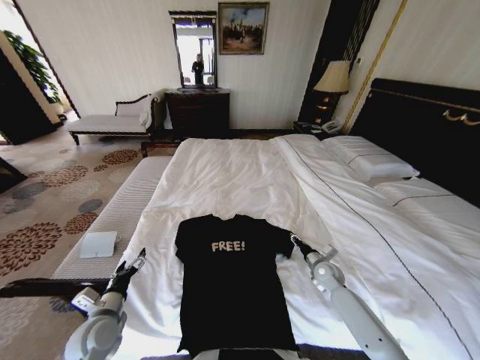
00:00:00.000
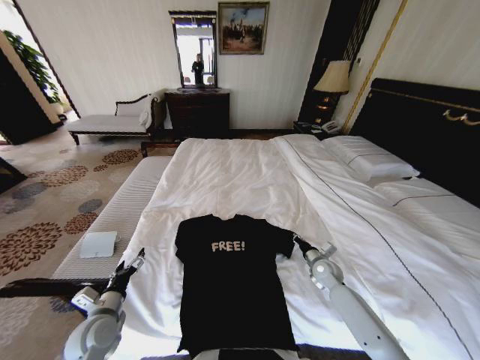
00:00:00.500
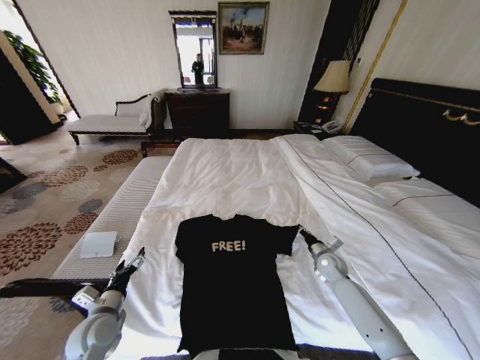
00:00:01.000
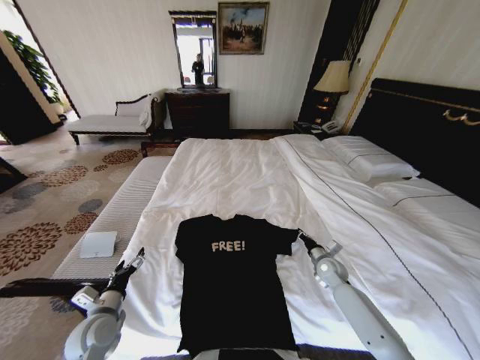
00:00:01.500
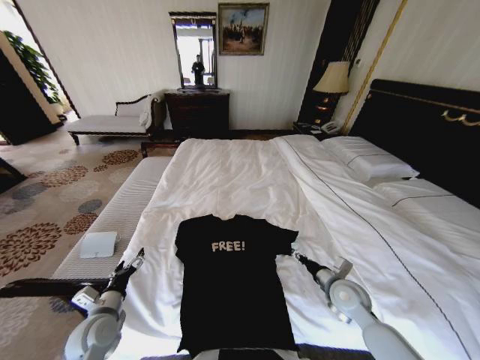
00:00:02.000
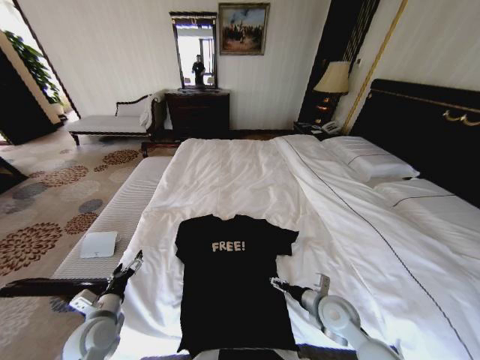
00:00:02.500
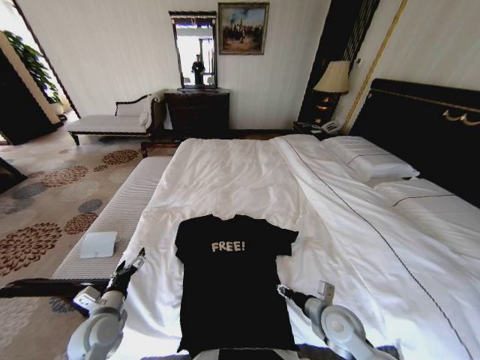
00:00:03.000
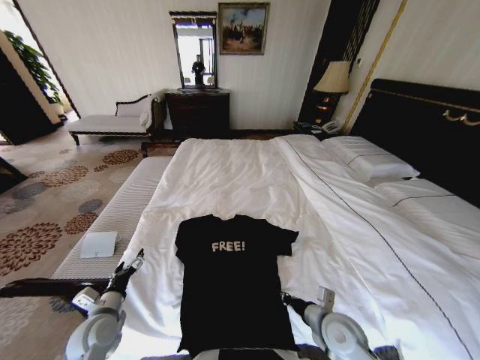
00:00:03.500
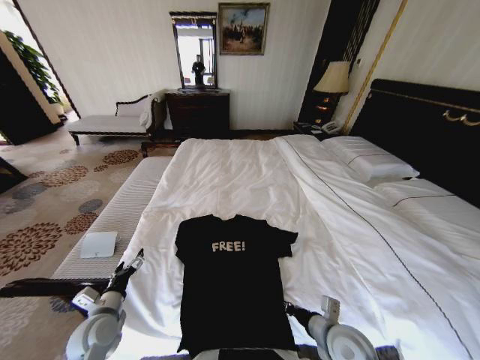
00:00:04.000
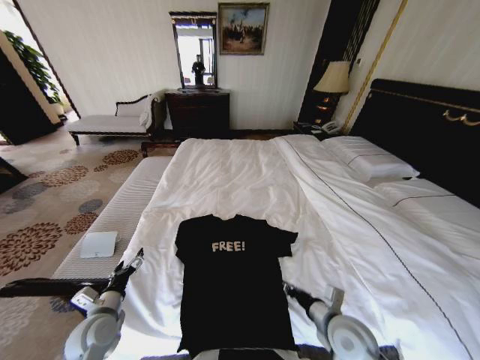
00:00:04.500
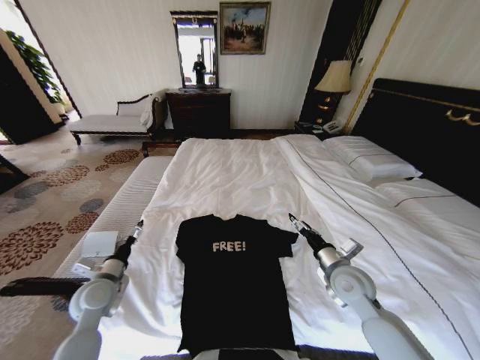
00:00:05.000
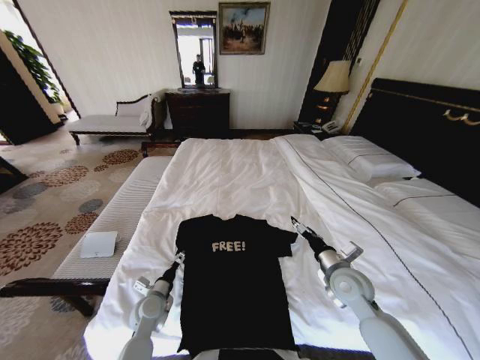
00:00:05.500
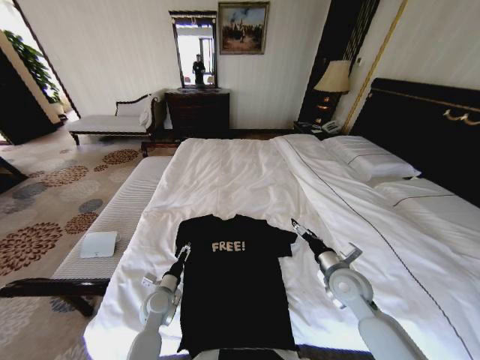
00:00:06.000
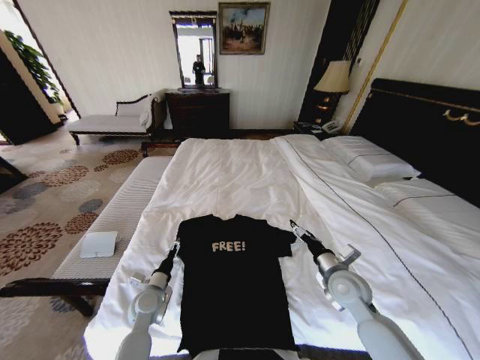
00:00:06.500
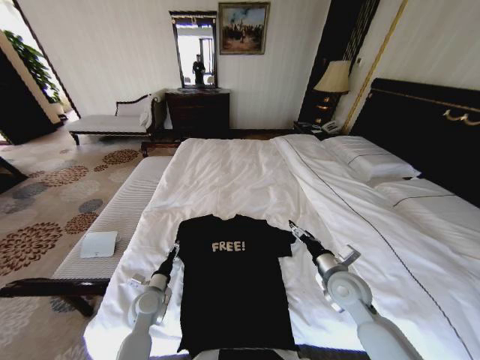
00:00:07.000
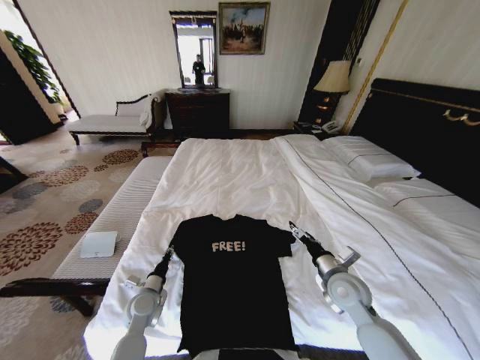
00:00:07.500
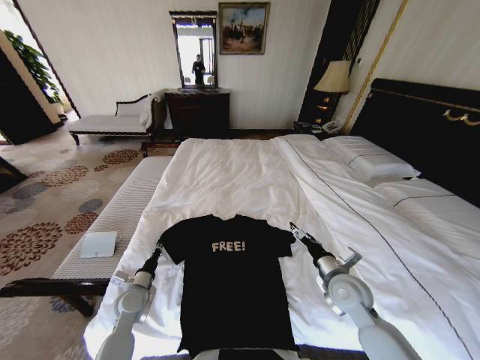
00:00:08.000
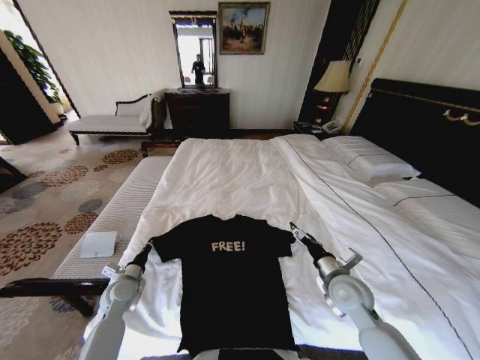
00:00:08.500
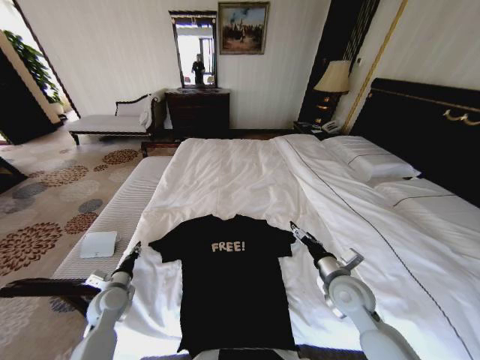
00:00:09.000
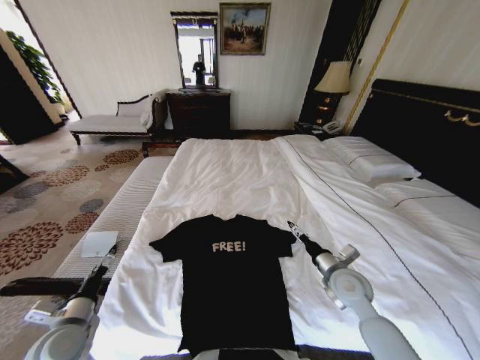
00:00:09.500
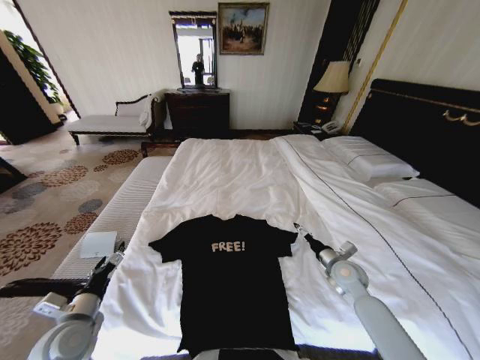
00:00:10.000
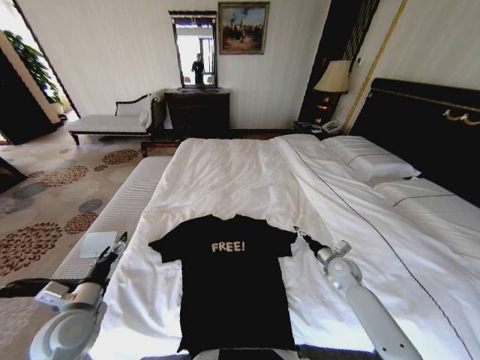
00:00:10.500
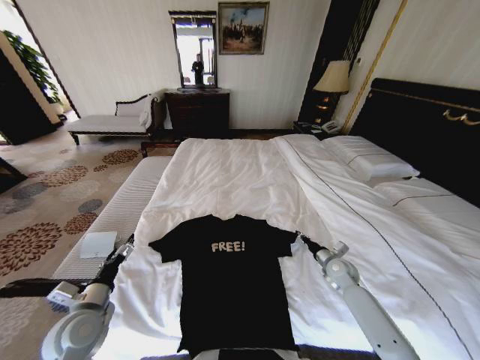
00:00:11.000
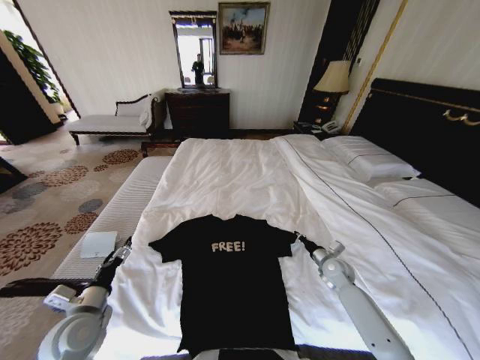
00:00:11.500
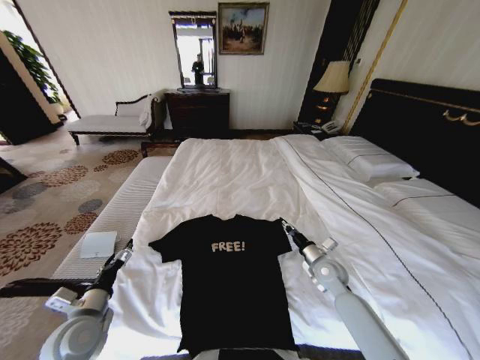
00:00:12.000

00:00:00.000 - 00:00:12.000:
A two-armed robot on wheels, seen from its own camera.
Task of the whole recording: Fold the clothes on the bed.
00:00:00.000 - 00:00:02.000: The right gripper is displaced backward and upward by about 15 cm, and closes, then opens again.
00:00:02.000 - 00:00:04.000: The right gripper moves backward and to the left, roughly 10 cm, and closes its fingers.
00:00:04.000 - 00:00:06.000: The left gripper goes about 15 cm to the right, forward and downward. Meanwhile the right gripper is displaced forward and to the right by approximately 15 cm, and opens.
00:00:06.000 - 00:00:08.000: The left gripper is displaced to the left by roughly 5 cm, and closes.
00:00:08.000 - 00:00:10.000: The left gripper heads backward, upward and to the left, covering roughly 15 cm, and opens its fingers. The right gripper travels forward and to the right by some 10 cm.
00:00:10.000 - 00:00:12.000: The right gripper ends up about 5 cm from where it was, and closes.

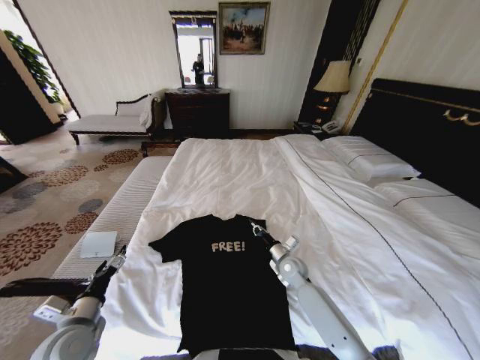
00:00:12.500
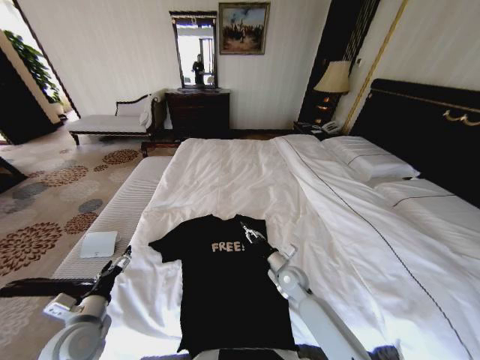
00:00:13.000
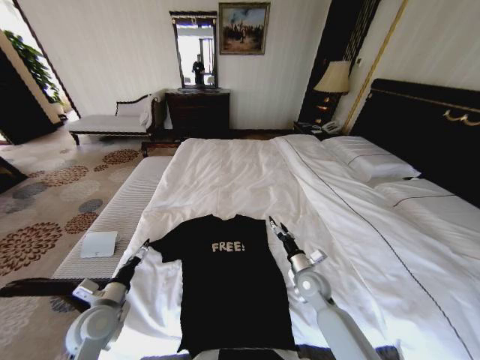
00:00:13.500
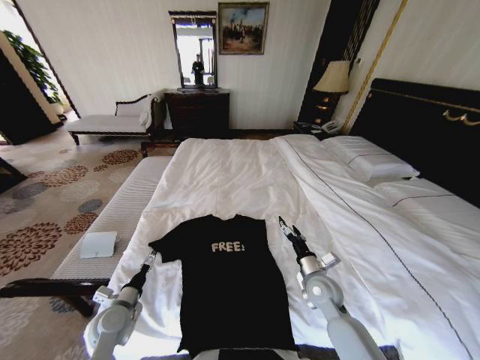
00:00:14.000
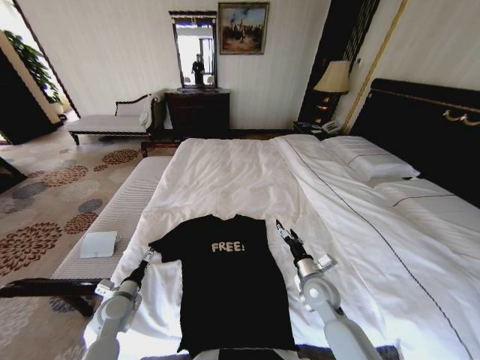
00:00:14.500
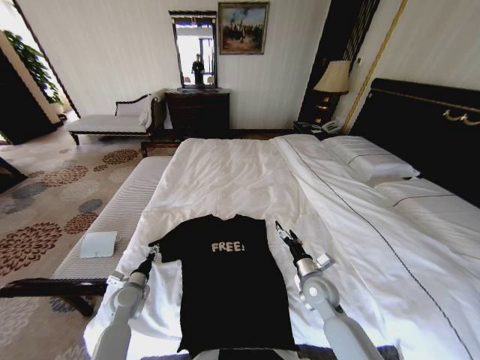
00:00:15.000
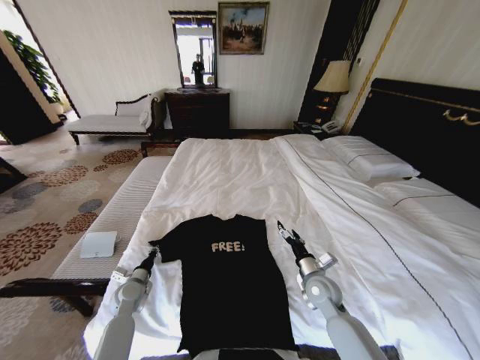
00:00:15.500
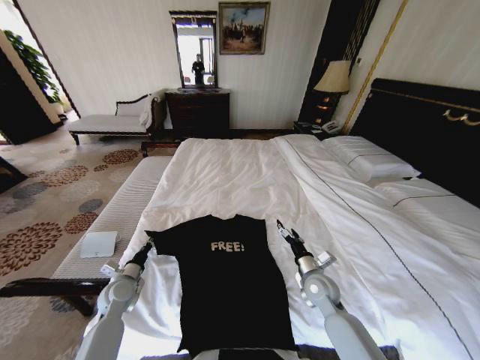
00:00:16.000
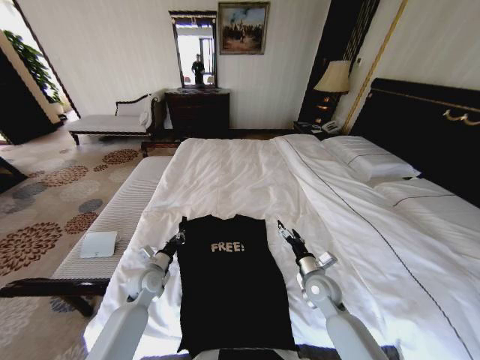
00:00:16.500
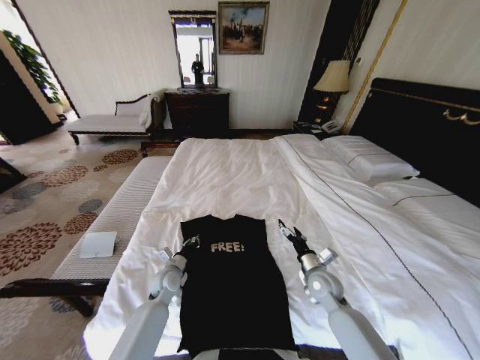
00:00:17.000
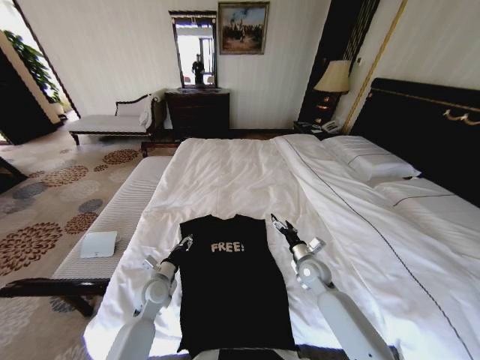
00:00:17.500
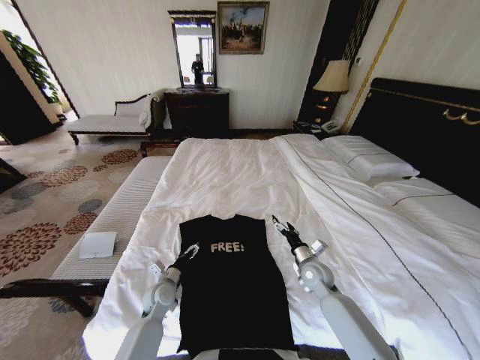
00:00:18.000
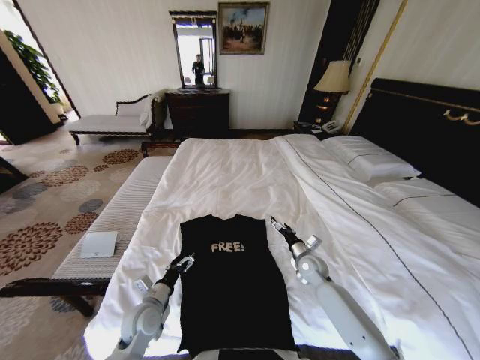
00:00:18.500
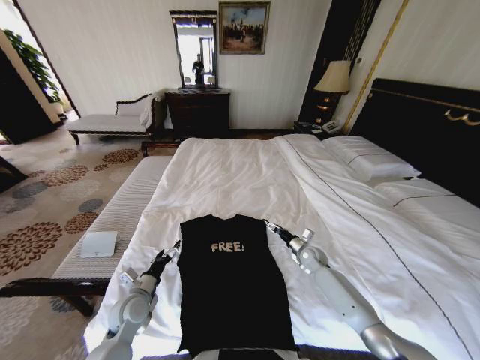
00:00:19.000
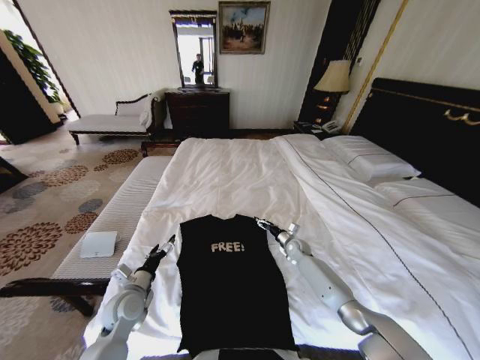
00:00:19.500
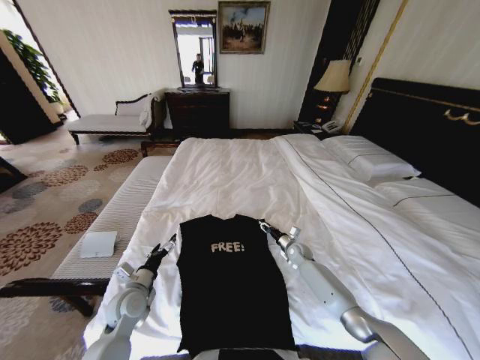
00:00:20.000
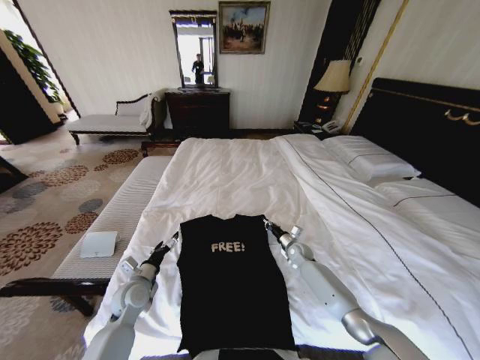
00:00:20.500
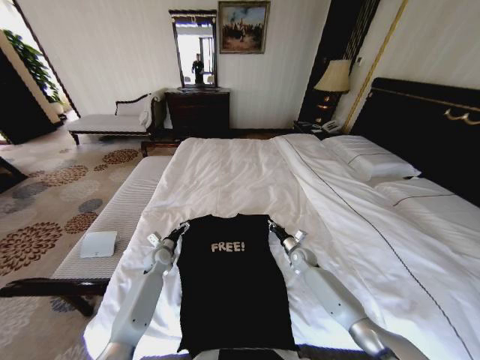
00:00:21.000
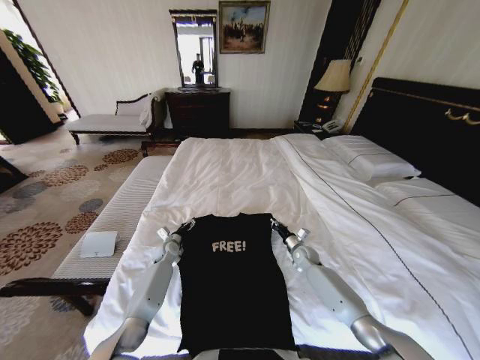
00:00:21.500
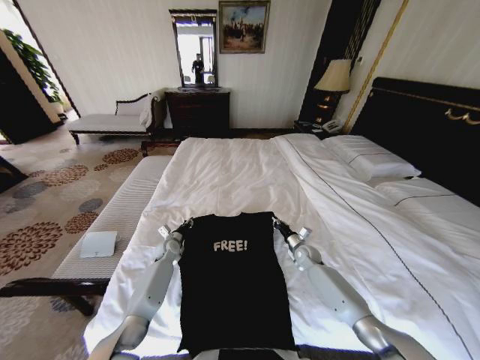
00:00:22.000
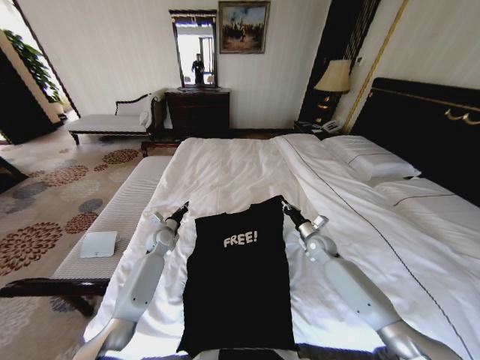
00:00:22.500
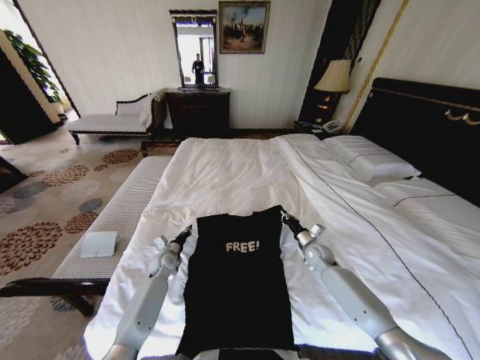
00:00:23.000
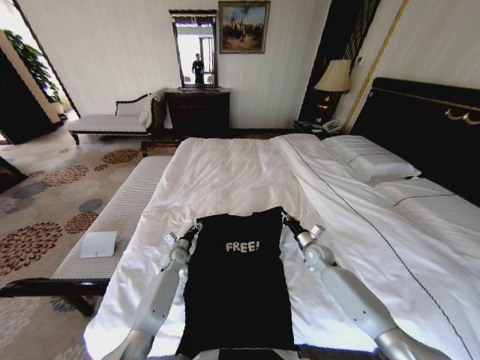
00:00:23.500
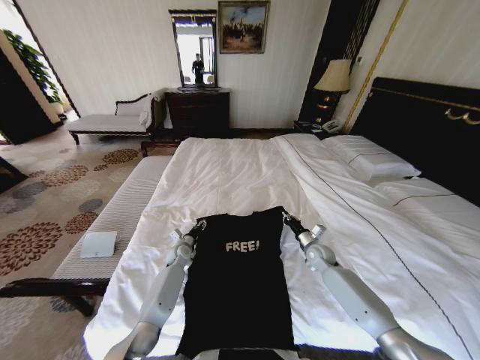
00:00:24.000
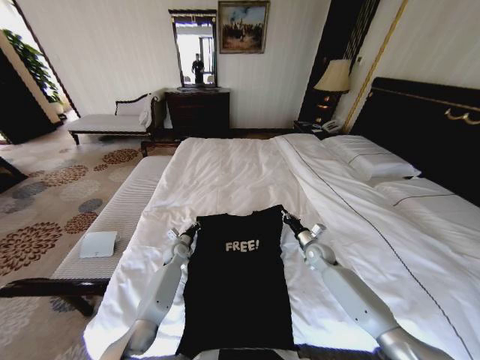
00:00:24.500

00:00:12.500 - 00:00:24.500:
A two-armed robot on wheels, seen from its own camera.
Task of the whole recording: Fold the clothes on the bed.
00:00:12.500 - 00:00:14.500: The left gripper moves downward and forward, roughly 15 cm, while the right gripper travels backward by approximately 10 cm, and opens its fingers.
00:00:14.500 - 00:00:16.500: The left gripper goes approximately 10 cm forward and to the right, and closes its fingers.
00:00:16.500 - 00:00:18.500: The right gripper goes approximately 10 cm forward. Meanwhile the left gripper moves backward, about 10 cm, and opens up.
00:00:18.500 - 00:00:20.500: The right gripper heads forward and downward, covering about 10 cm, and closes its fingers; the left gripper heads forward, covering roughly 5 cm.
00:00:20.500 - 00:00:22.500: The right gripper heads upward, covering roughly 10 cm. Meanwhile the left gripper moves forward, about 20 cm, and closes up.
00:00:22.500 - 00:00:24.500: The left gripper is displaced downward by approximately 10 cm, and opens, then closes again.

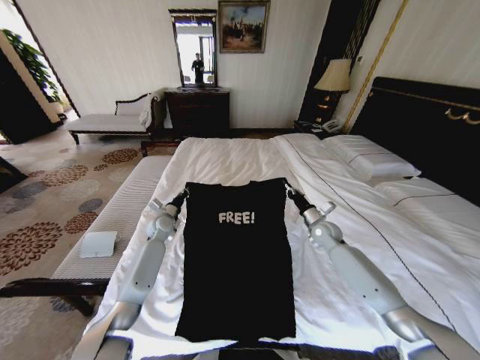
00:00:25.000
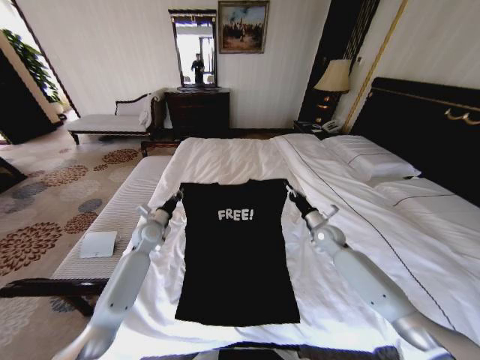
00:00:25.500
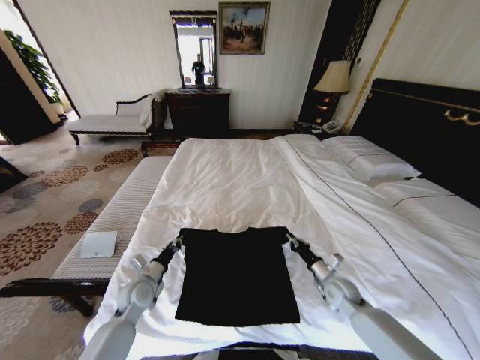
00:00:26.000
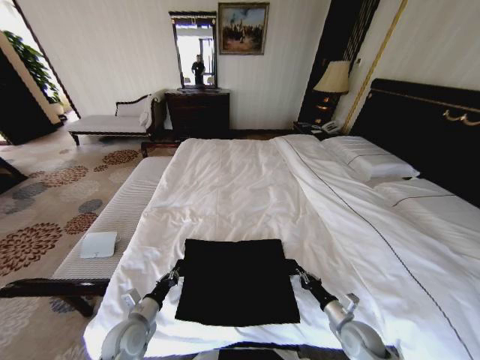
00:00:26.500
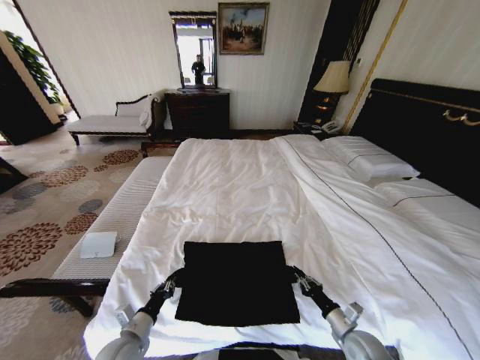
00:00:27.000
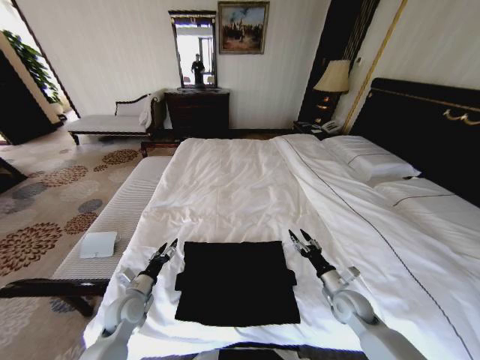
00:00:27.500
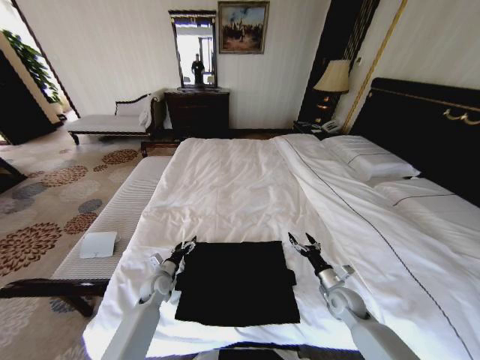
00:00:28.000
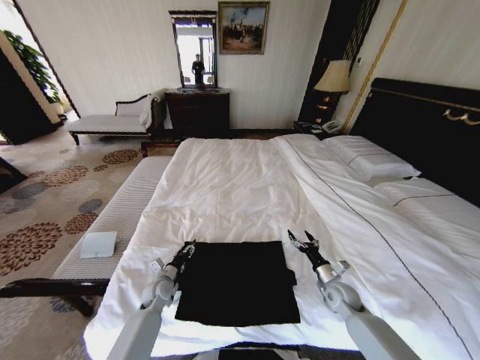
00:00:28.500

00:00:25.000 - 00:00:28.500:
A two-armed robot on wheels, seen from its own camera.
Task of the whole recording: Fold the clothes on the bed.
00:00:25.000 - 00:00:27.000: The left gripper shifts approximately 35 cm backward. Meanwhile the right gripper goes approximately 35 cm backward and downward.
00:00:27.000 - 00:00:28.500: Both grippers travel together forward, some 15 cm. The left gripper opens its fingers; the right gripper opens its fingers.
